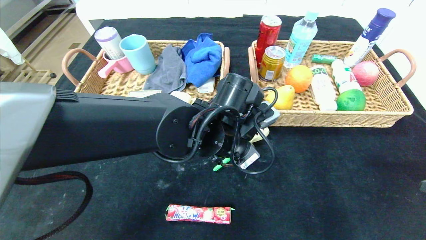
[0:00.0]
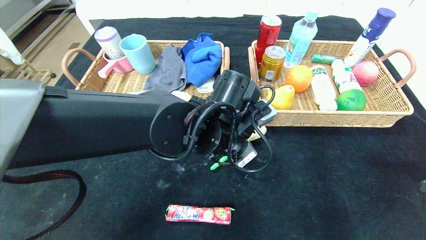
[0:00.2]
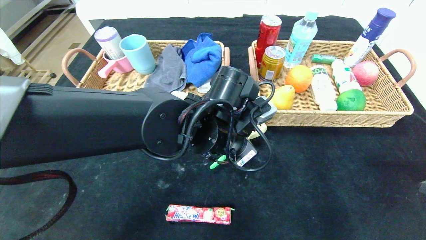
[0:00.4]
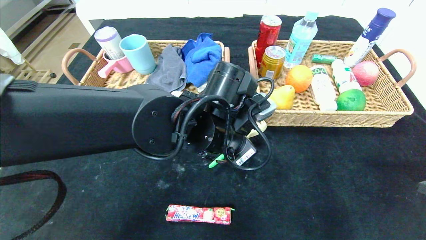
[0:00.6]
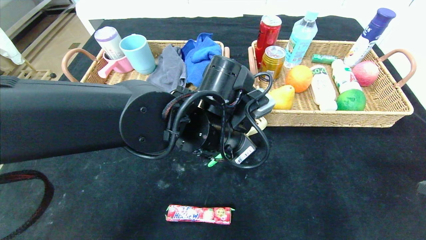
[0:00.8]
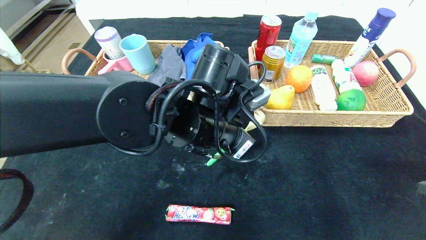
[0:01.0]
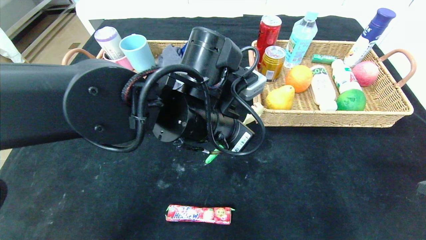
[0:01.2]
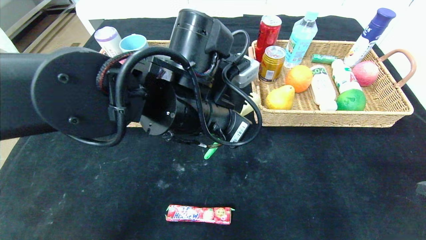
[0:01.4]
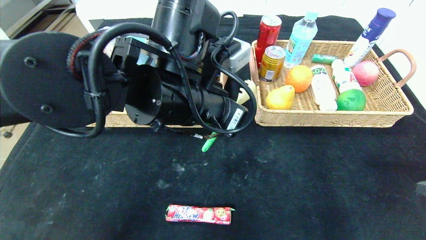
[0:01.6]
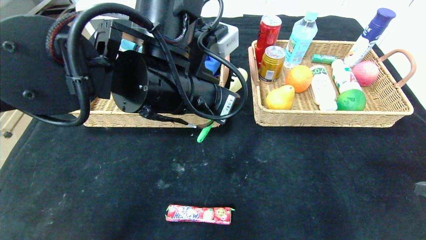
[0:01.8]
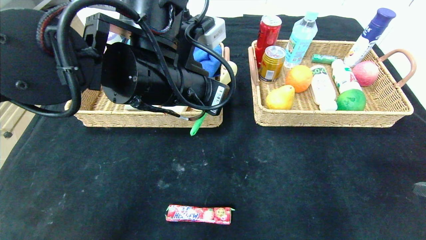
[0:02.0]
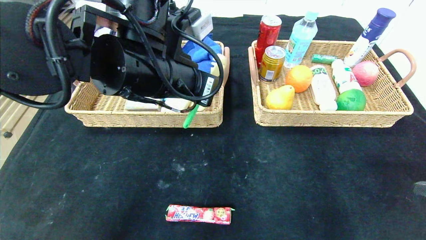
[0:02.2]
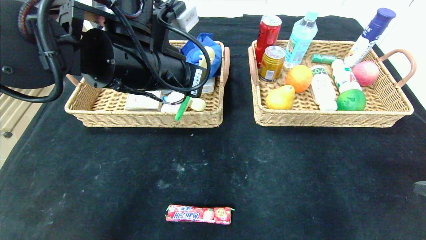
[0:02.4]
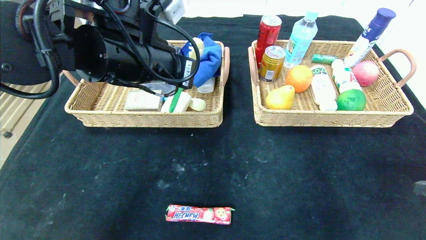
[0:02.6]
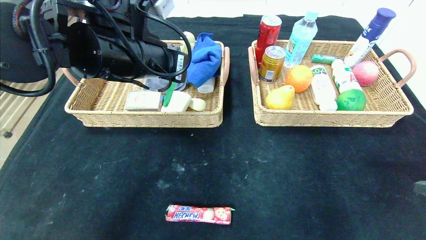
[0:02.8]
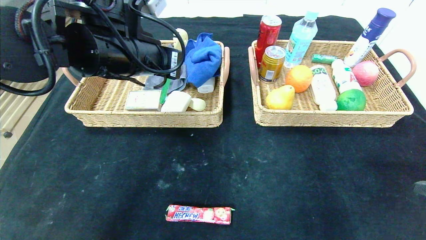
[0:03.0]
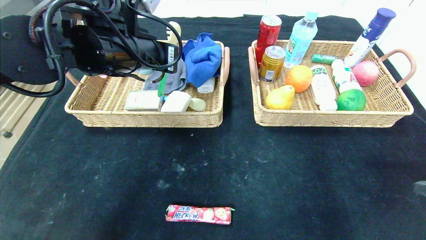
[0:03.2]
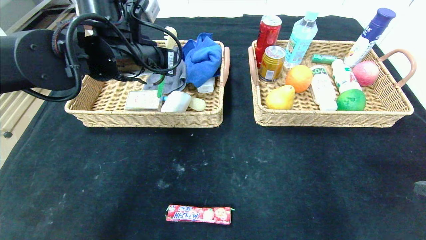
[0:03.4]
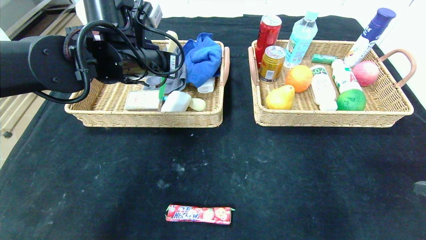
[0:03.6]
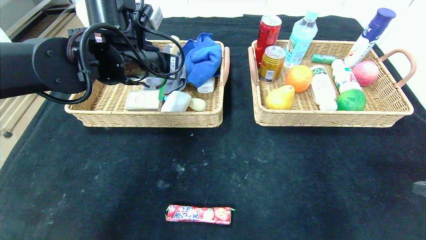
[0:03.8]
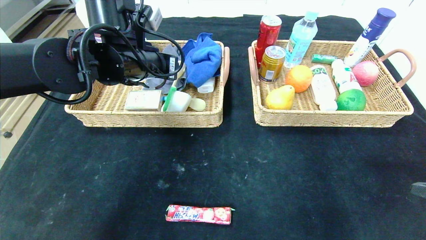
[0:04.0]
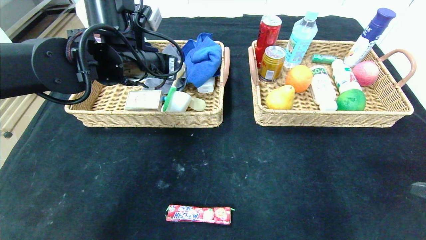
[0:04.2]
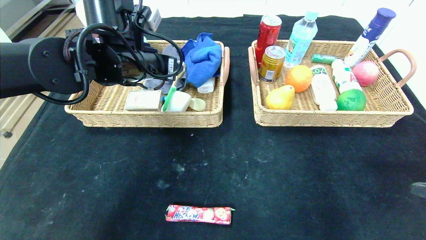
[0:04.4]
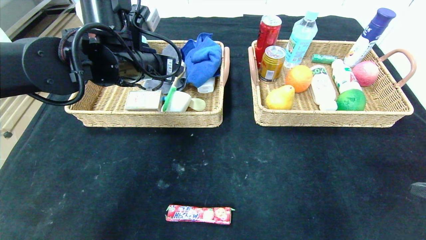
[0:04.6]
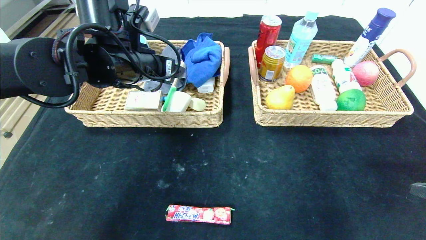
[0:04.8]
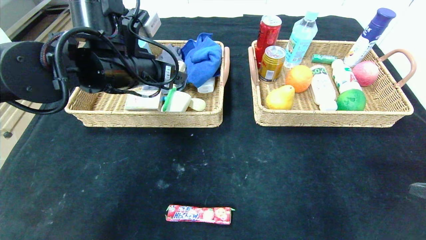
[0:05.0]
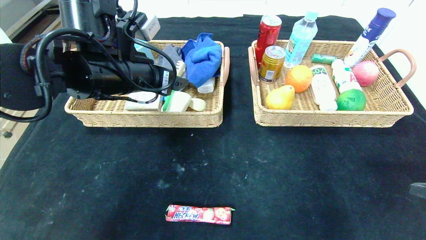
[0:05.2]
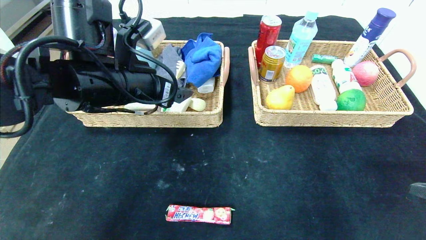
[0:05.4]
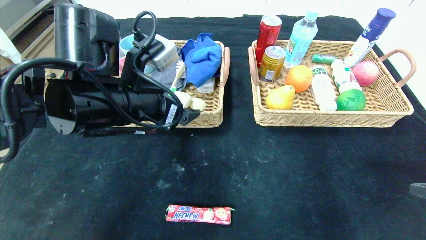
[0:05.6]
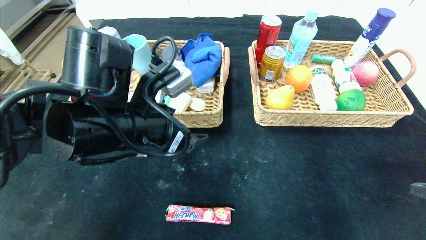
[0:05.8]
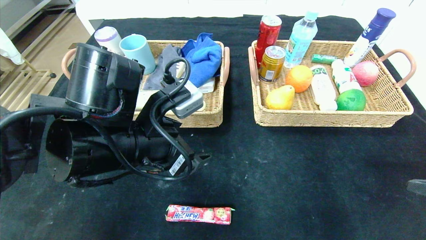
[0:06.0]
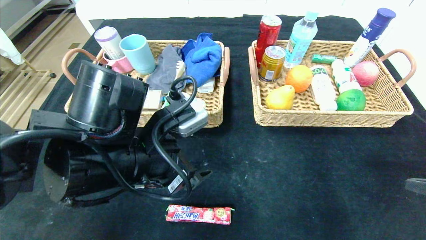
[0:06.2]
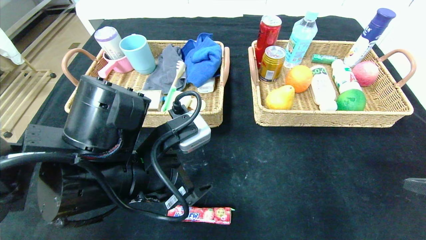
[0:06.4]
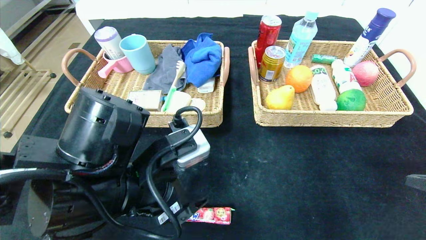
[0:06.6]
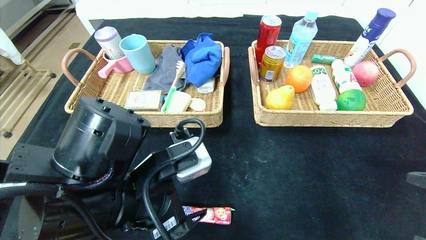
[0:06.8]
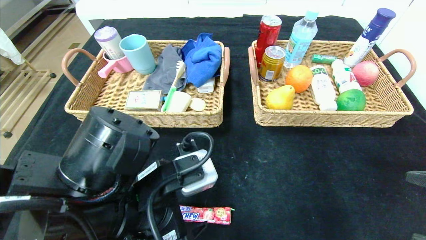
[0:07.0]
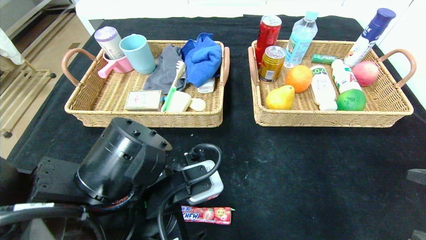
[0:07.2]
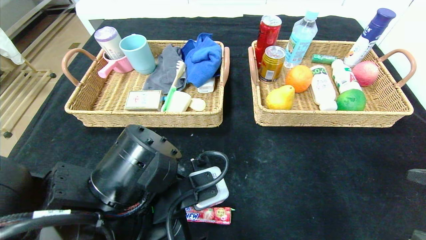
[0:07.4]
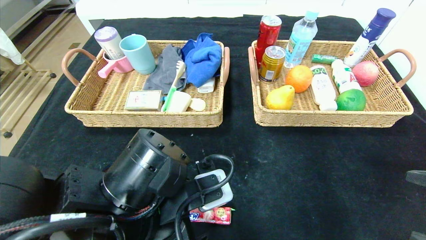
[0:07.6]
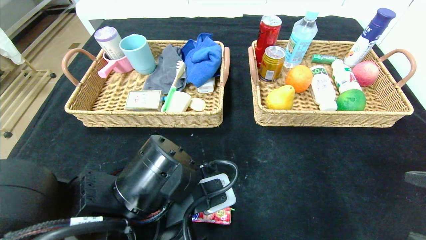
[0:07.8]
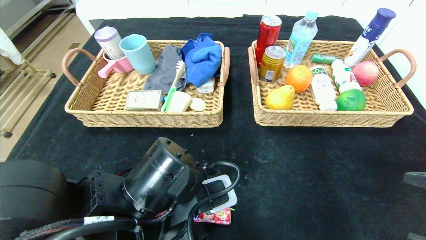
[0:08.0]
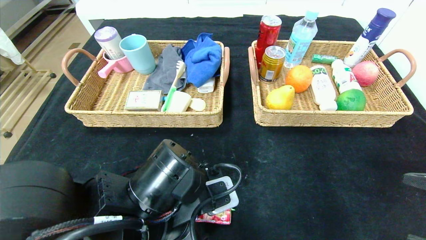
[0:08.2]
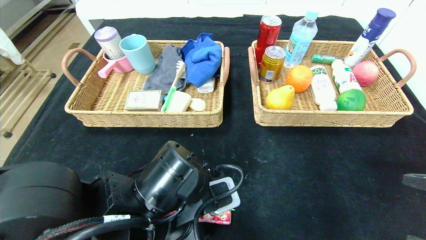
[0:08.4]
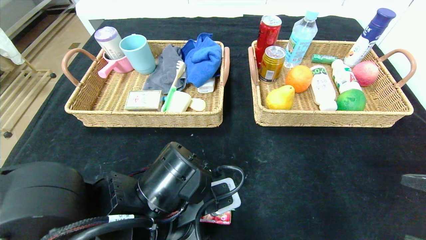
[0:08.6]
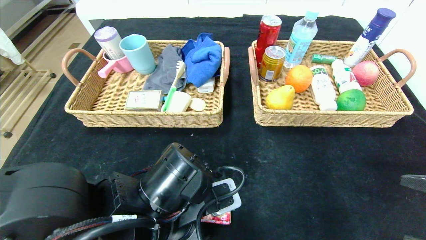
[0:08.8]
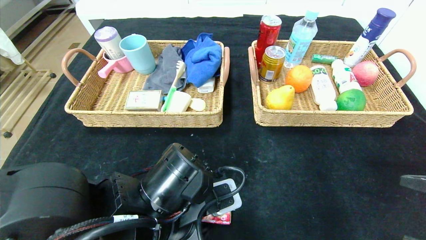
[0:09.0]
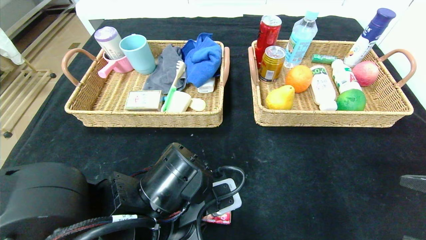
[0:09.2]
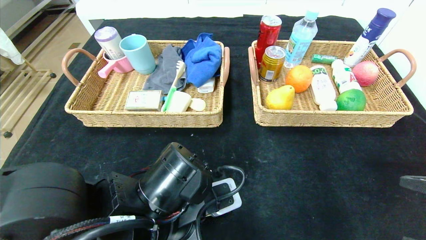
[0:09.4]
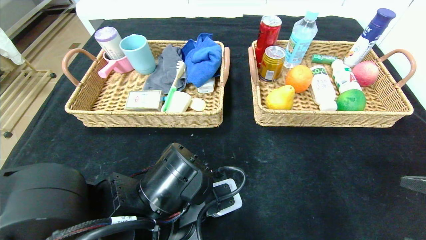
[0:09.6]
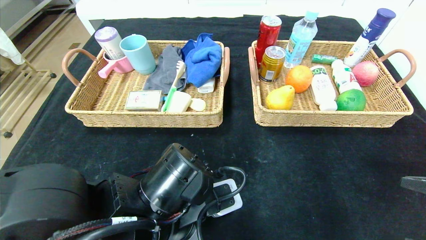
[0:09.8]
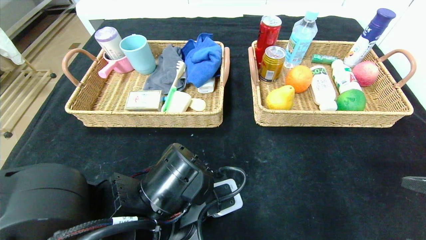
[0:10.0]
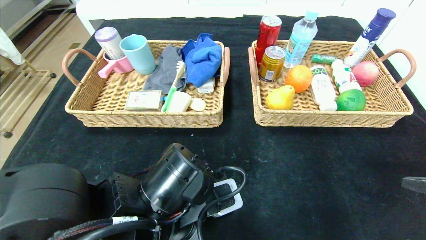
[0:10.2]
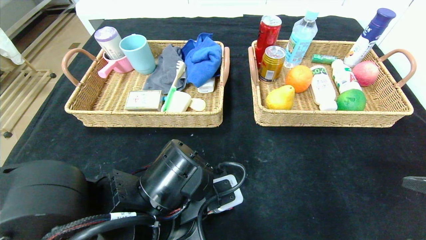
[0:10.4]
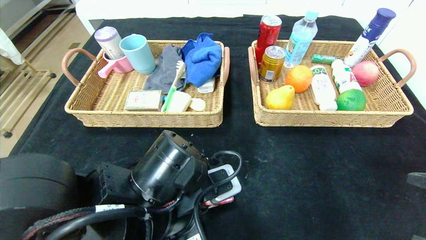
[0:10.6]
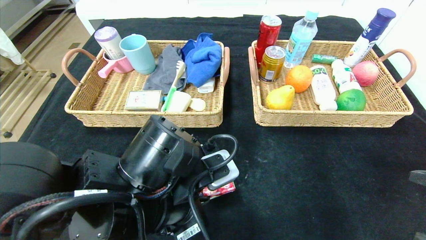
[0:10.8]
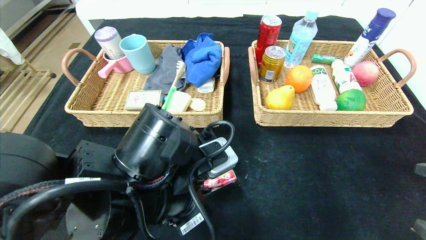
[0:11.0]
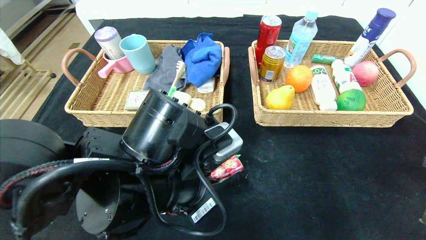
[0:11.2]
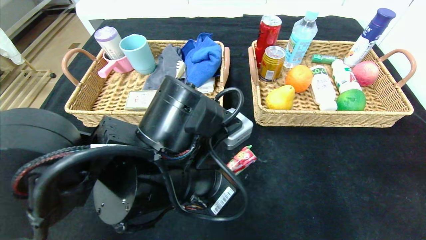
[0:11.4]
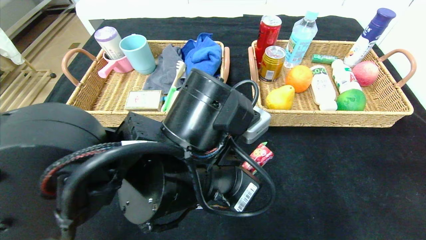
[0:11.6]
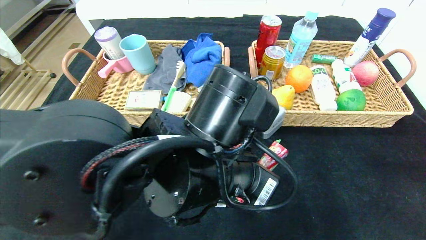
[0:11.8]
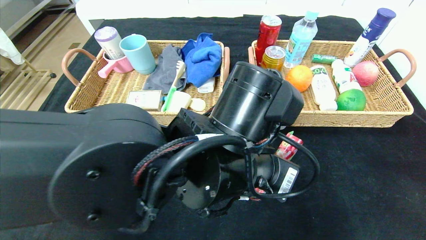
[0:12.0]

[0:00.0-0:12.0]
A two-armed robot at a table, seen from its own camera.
Step, 0:00.0 to 0:04.0: Grasp the back scratcher and put it in the left basket.
0:00.0 to 0:01.6: The left gripper is displaced upward by approximately 10 cm.
0:01.6 to 0:03.0: The left gripper moves to the left and forward, roughly 10 cm.
0:03.0 to 0:04.4: The left gripper opens up.
0:04.4 to 0:06.0: The left gripper moves backward and downward, about 15 cm.
0:06.0 to 0:07.6: The left gripper travels downward and backward by roughly 10 cm.
0:07.6 to 0:09.0: The grippers move only a little.
0:09.0 to 0:10.4: The left gripper closes.
0:10.4 to 0:12.0: The left gripper is displaced to the right and upward by roughly 10 cm.

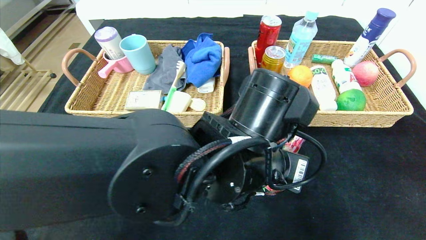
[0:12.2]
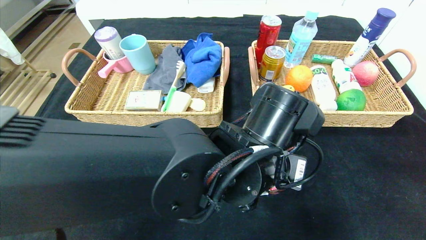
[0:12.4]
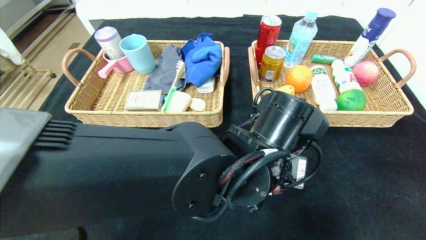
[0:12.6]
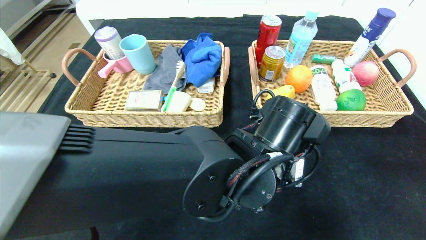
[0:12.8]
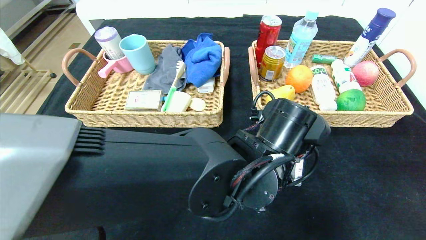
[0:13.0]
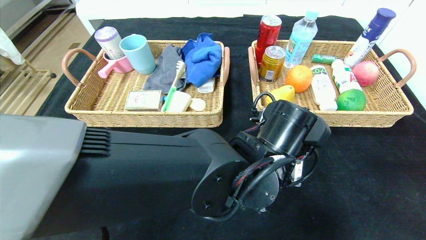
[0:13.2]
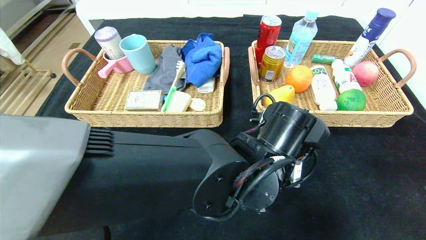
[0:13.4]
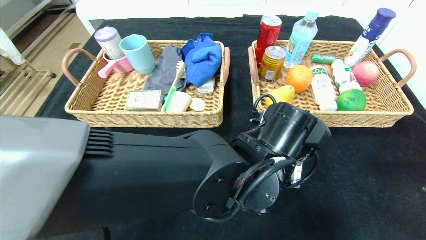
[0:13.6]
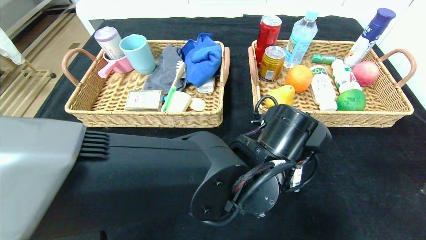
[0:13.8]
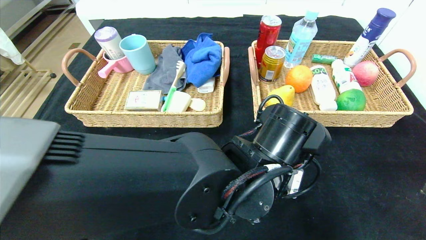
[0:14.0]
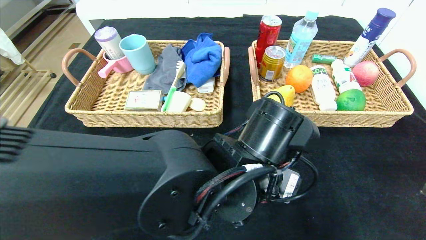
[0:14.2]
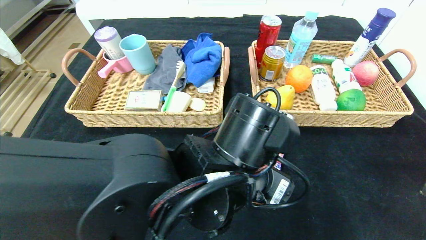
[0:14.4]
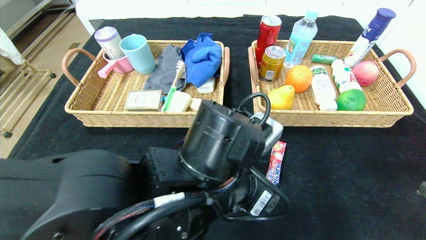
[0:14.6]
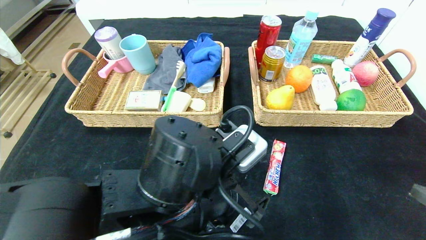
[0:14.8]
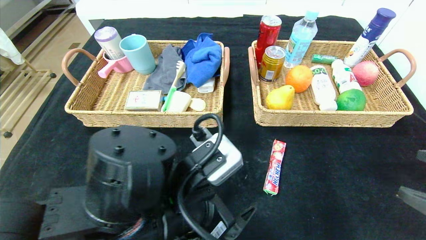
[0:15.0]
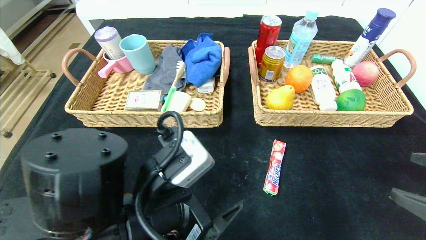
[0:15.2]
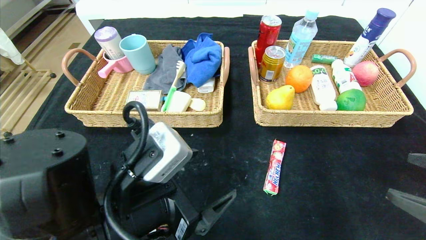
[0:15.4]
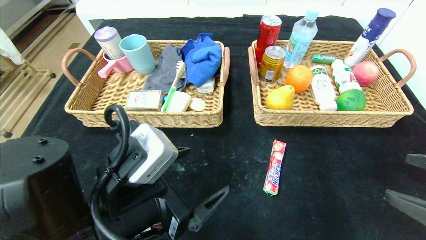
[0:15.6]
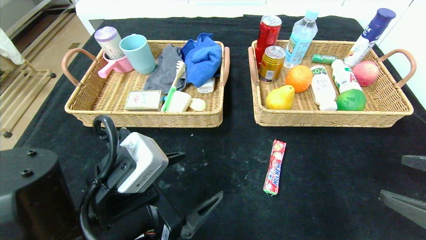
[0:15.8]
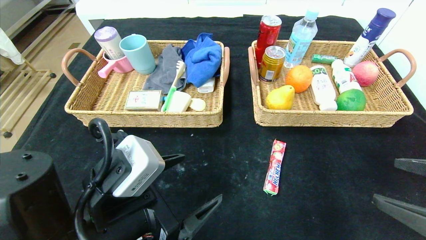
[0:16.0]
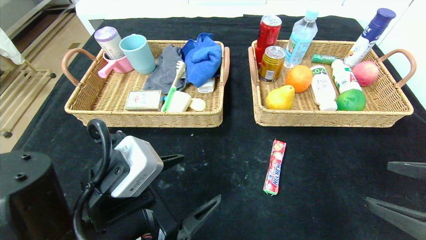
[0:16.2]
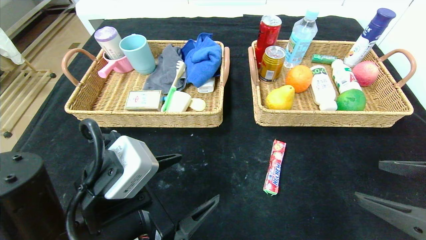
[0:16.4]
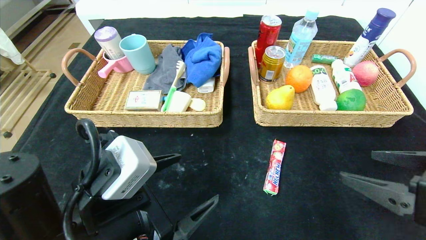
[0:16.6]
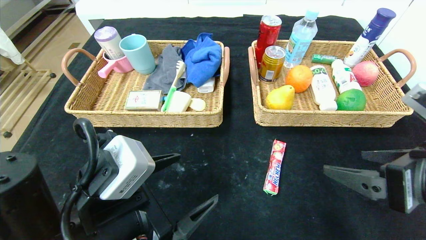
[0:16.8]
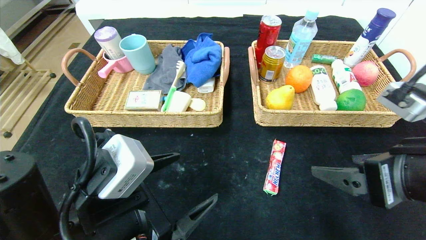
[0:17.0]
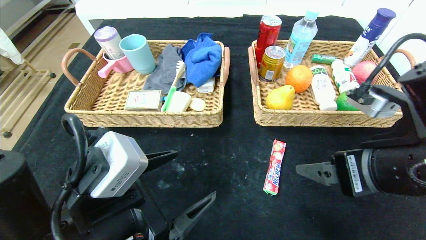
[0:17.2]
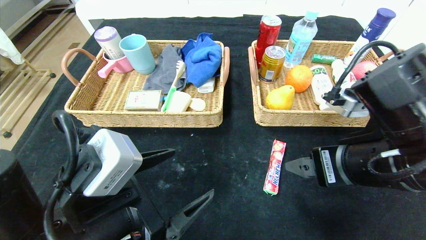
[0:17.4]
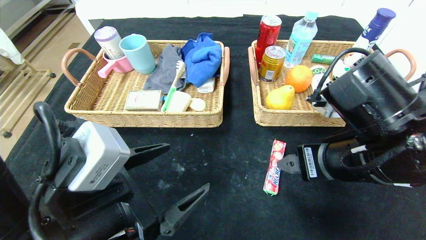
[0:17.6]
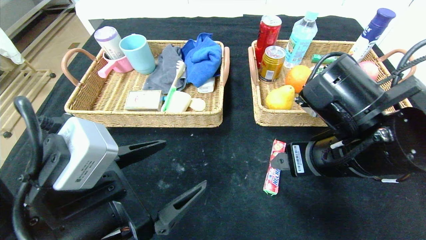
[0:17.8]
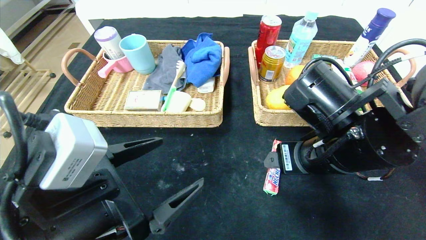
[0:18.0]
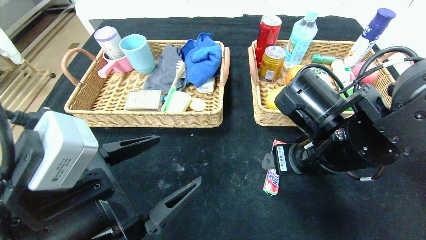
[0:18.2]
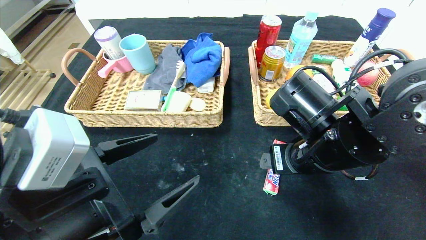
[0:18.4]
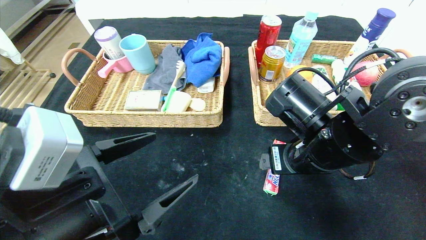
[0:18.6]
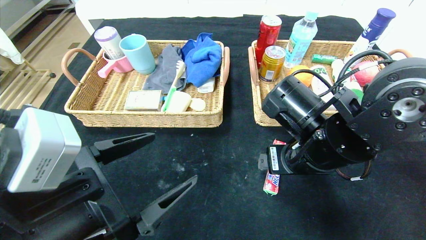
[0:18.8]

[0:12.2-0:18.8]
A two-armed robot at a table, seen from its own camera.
0:12.2 to 0:13.8: The left gripper moves some 5 cm, and opens its fingers.
0:13.8 to 0:15.4: The left gripper heads to the left and backward, covering some 20 cm.
0:15.4 to 0:17.2: The right gripper moves to the left and forward, approximately 15 cm.
0:17.2 to 0:18.8: The right gripper shifts about 10 cm forward and to the left.
